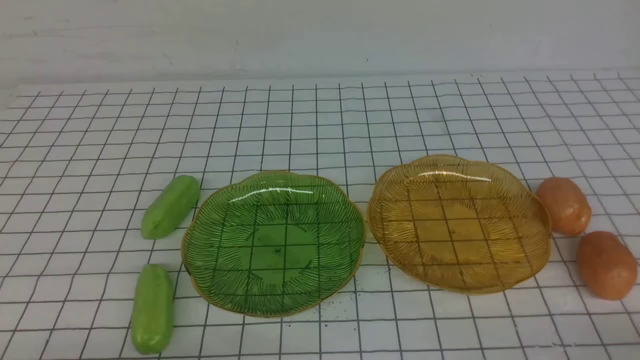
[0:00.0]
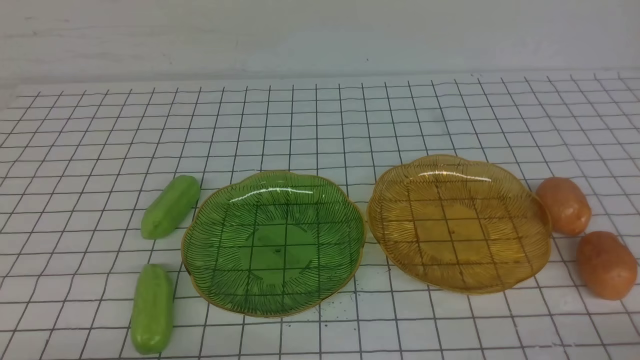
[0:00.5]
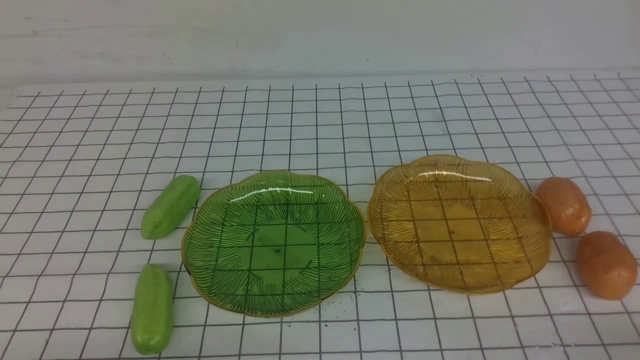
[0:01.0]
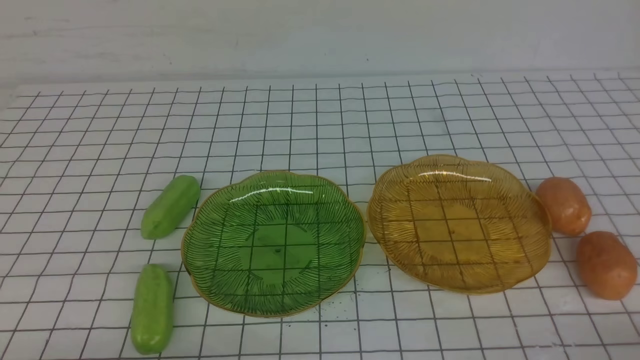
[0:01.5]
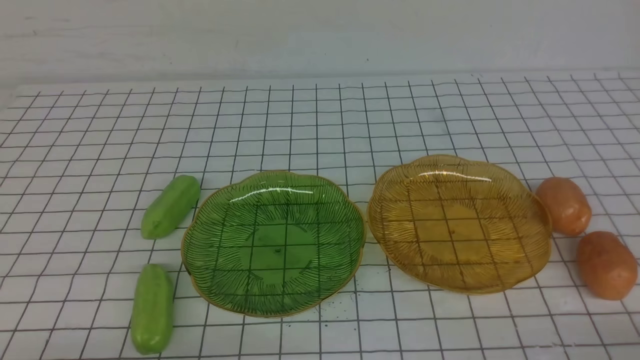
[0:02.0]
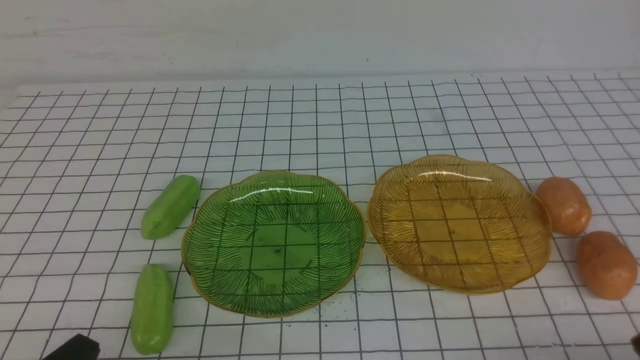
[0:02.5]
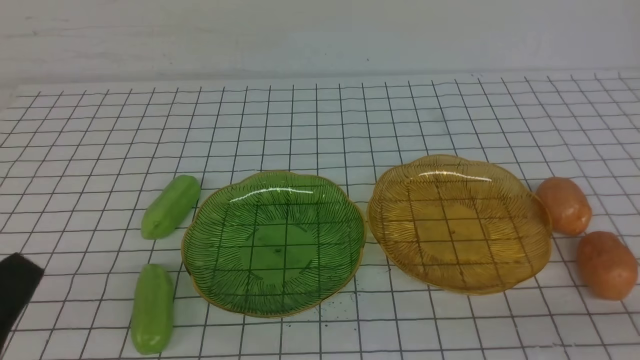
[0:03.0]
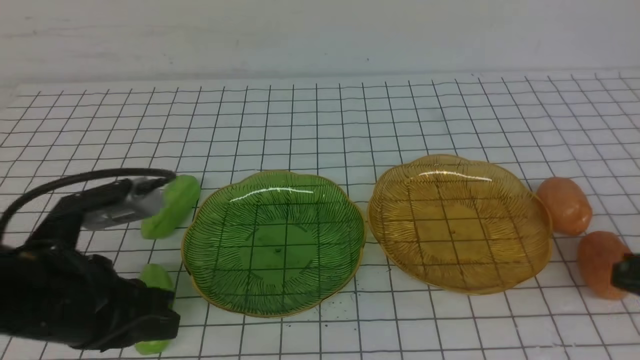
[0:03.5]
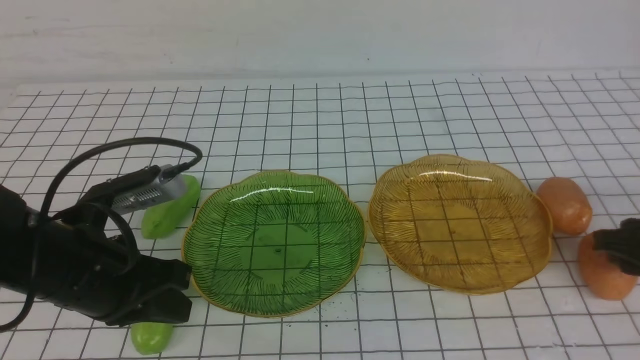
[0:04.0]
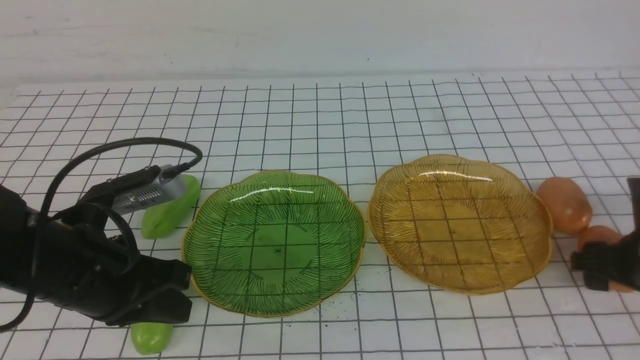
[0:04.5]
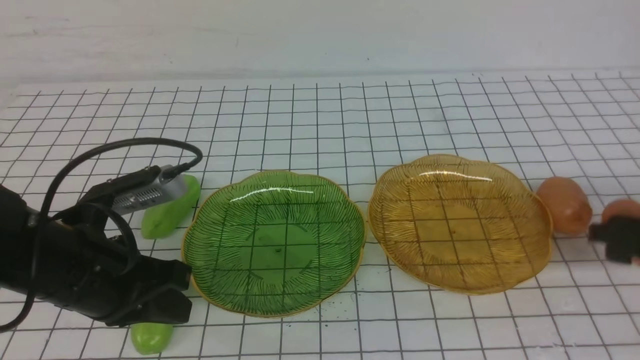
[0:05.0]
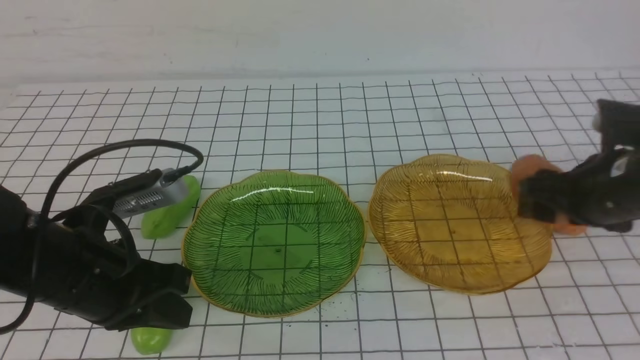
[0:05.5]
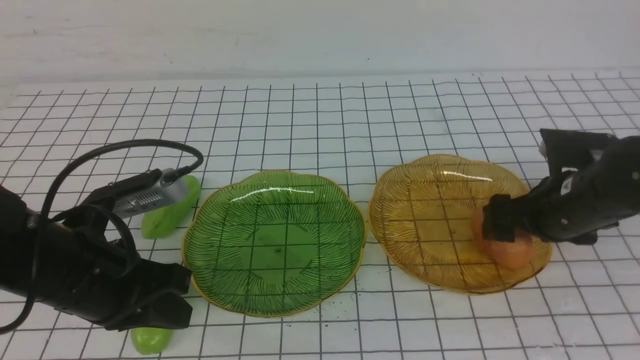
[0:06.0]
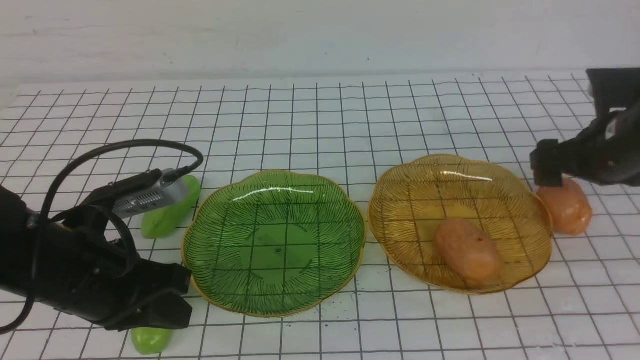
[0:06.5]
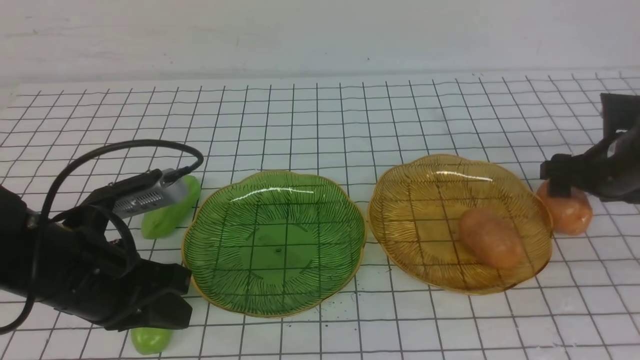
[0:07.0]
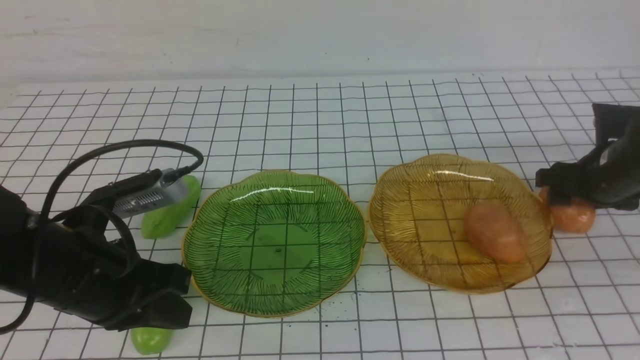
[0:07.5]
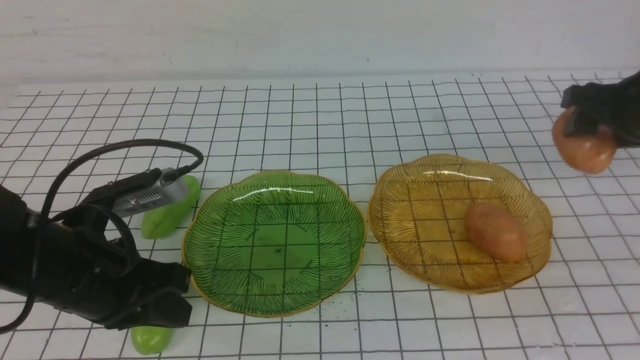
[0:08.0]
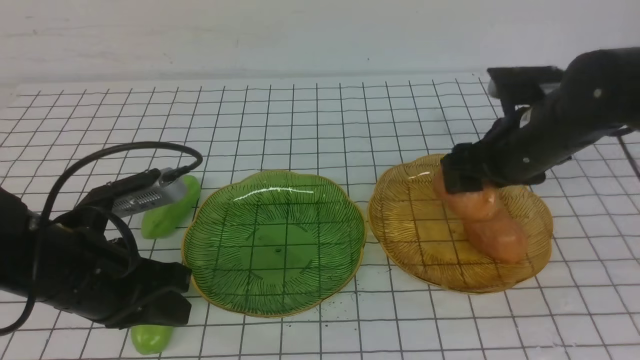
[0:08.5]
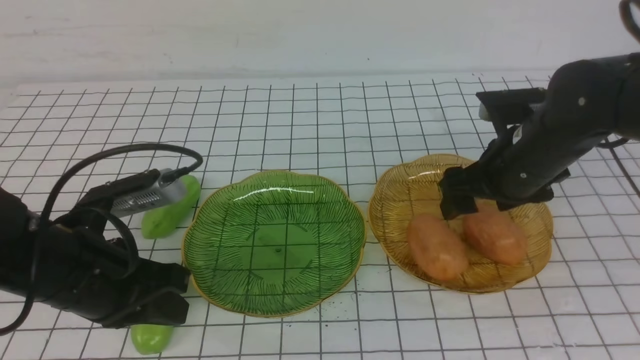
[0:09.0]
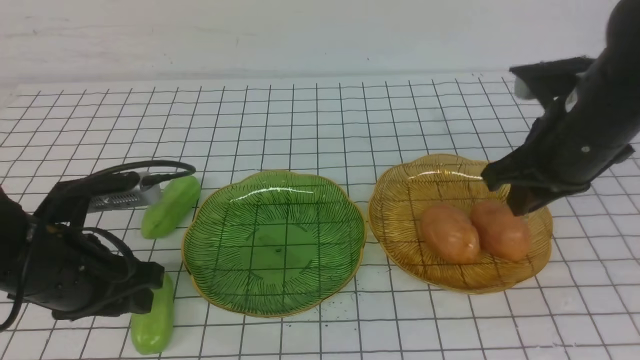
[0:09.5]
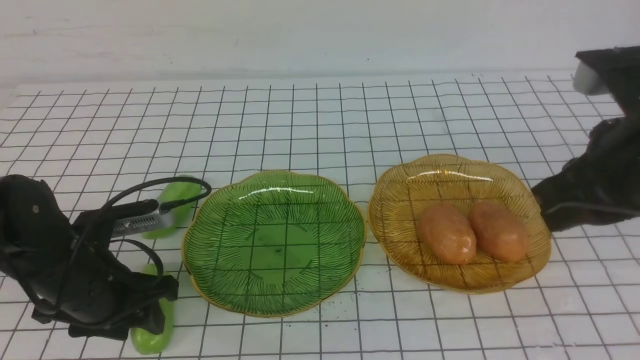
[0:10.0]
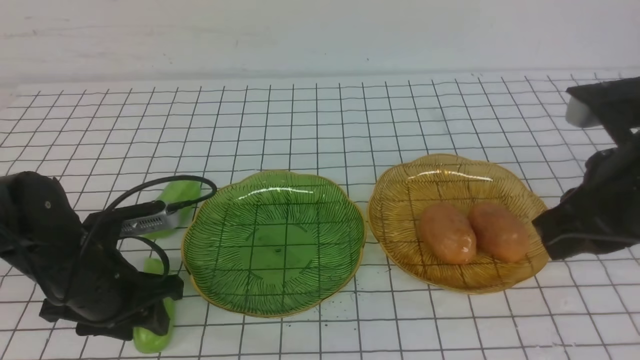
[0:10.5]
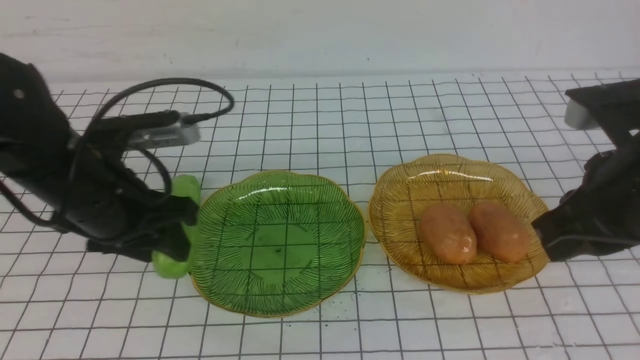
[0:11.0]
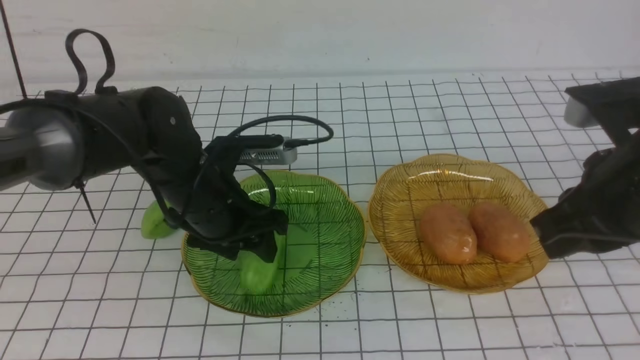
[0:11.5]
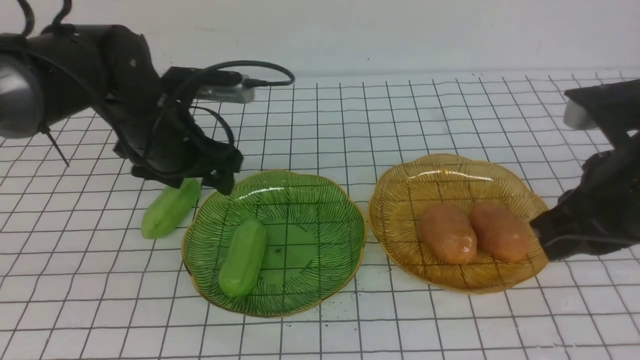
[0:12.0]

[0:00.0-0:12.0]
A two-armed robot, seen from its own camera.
Step, 0:00.0 to 0:06.0: Grab a potato with your right arm and put it on the right plate.
Step, 0:06.5 to 0:08.5: Grab a potato with your right arm and put it on the right plate.
0:02.0 to 0:04.0: The left gripper goes approximately 20 cm forward and upward; the right gripper shifts about 20 cm forward, and opens its fingers.
0:04.0 to 0:06.0: The right gripper goes roughly 10 cm forward and to the left, and opens.
0:06.0 to 0:08.0: The right gripper goes about 5 cm upward.
0:08.0 to 0:10.0: The left gripper heads downward, covering approximately 5 cm, and opens, while the right gripper shifts roughly 15 cm backward, to the left and upward, and closes up.
0:10.0 to 0:12.0: The left gripper heads forward, upward and to the right, covering some 15 cm, and opens its fingers.

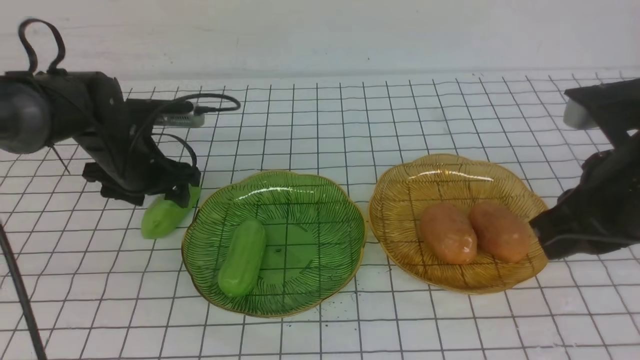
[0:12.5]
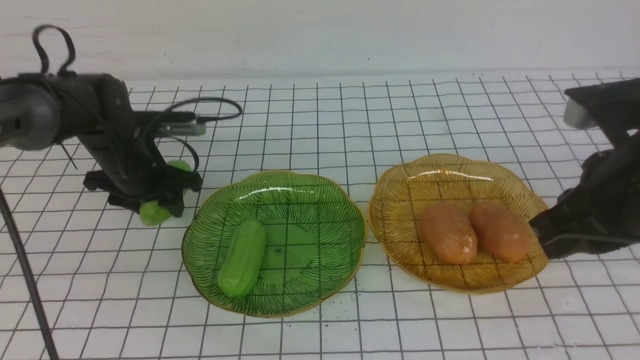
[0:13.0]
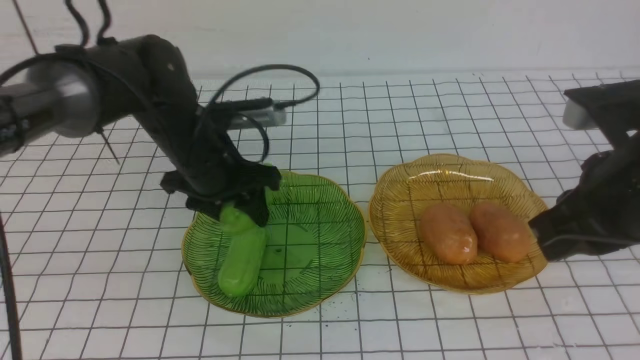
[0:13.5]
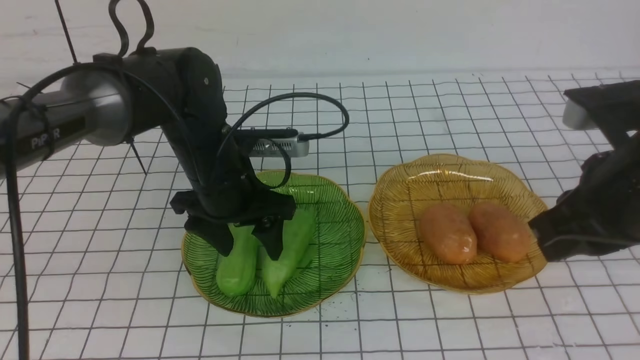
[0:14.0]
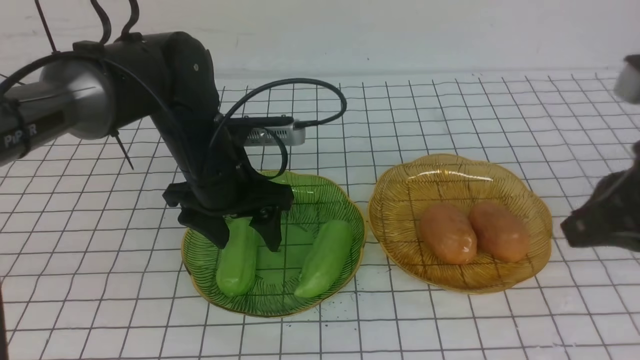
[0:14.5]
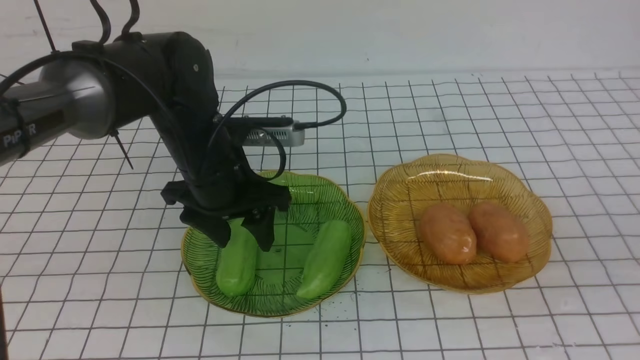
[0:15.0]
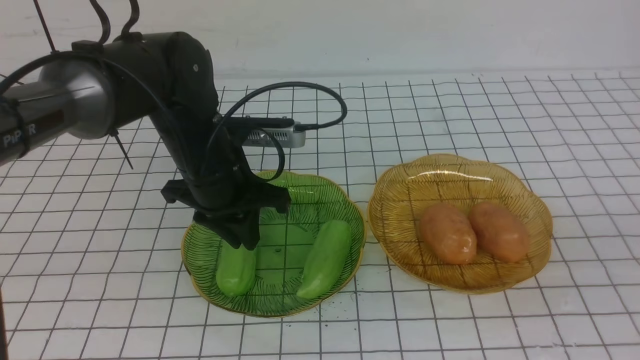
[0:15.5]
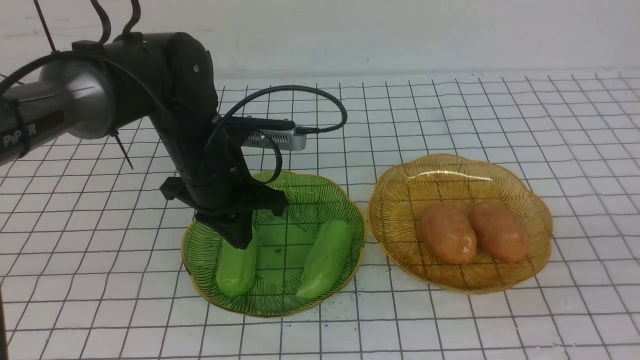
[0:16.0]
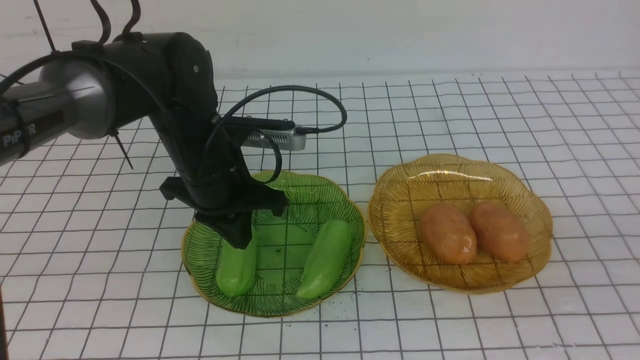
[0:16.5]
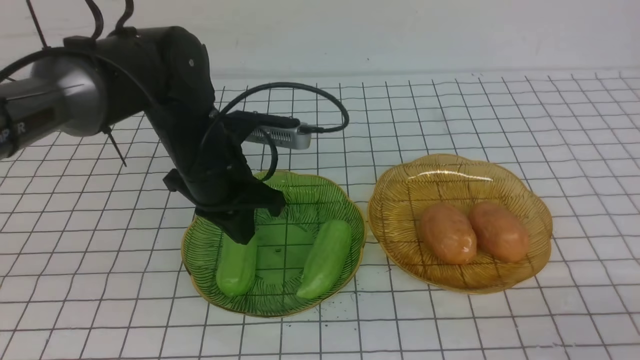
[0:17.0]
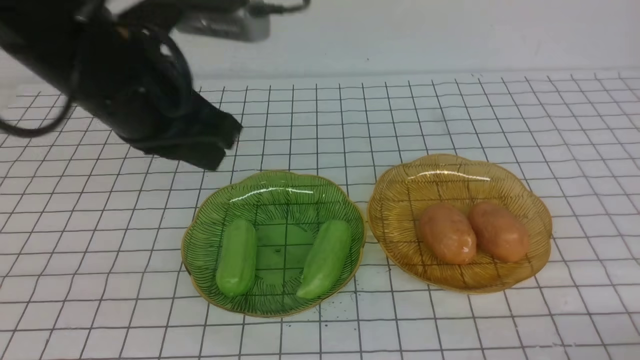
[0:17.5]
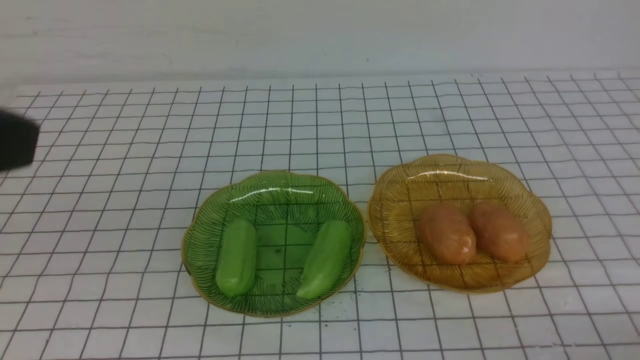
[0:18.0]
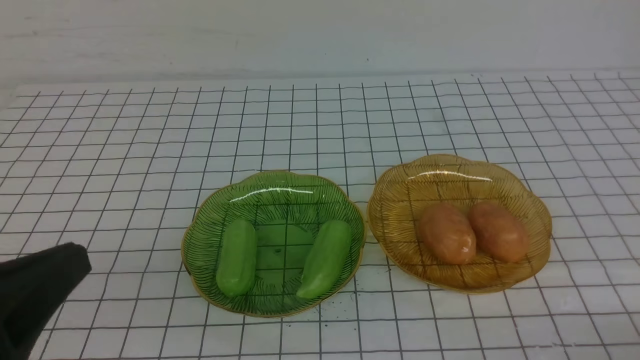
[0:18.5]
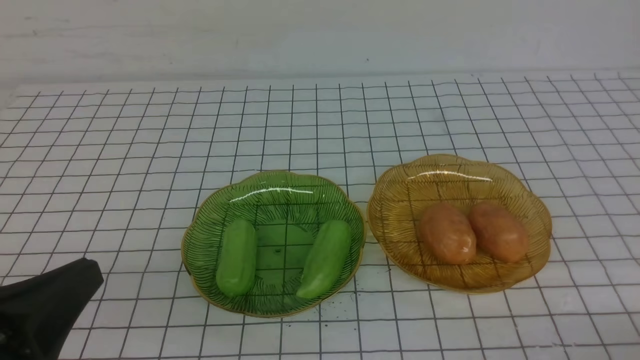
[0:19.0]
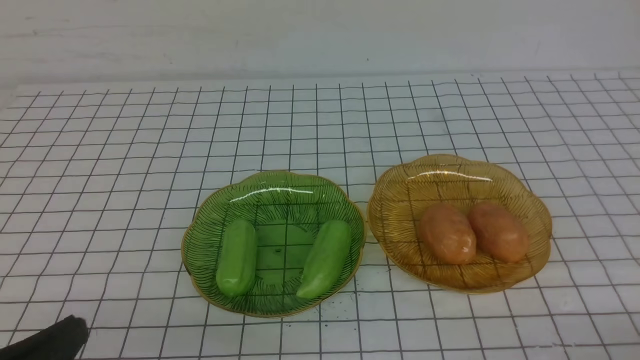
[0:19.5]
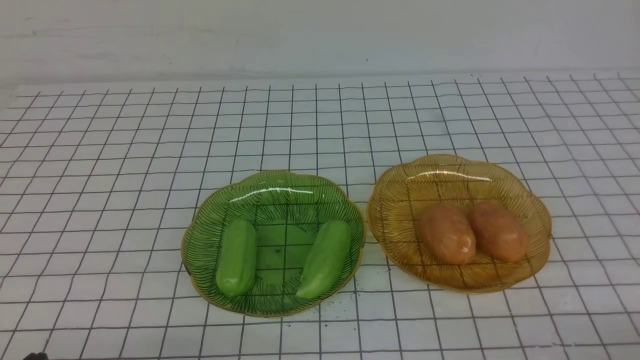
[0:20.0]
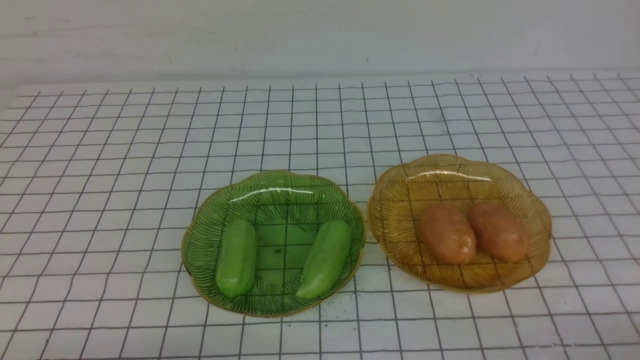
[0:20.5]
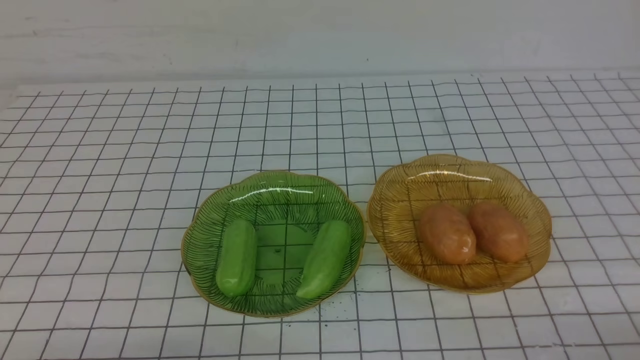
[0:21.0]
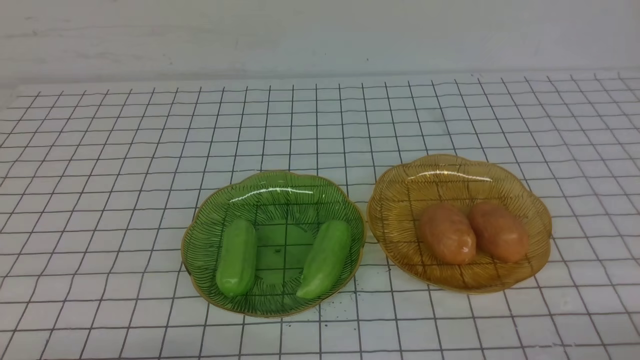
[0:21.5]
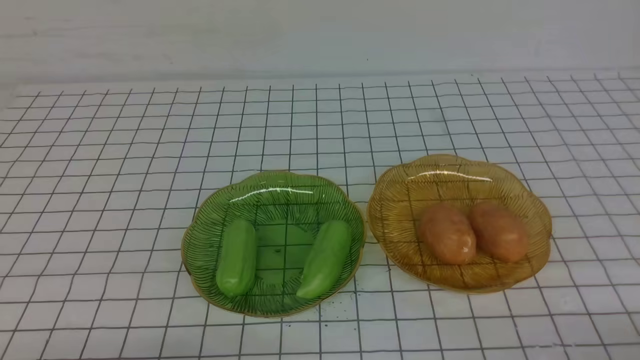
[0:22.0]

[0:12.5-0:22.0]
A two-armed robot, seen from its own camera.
0:12.5 to 0:14.5: The right gripper shifts roughly 5 cm backward; the left gripper shifts about 15 cm to the right, backward and upward.
0:14.5 to 0:16.5: The left gripper closes its fingers. Meanwhile the right gripper heads backward, downward and to the right, covering about 15 cm.
0:16.5 to 0:18.0: The right gripper goes roughly 15 cm downward, while the left gripper goes roughly 35 cm backward and upward.
0:18.0 to 0:20.0: The left gripper heads downward, covering approximately 30 cm.
0:20.0 to 0:22.0: The two grippers keep their place.
